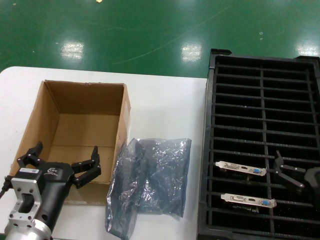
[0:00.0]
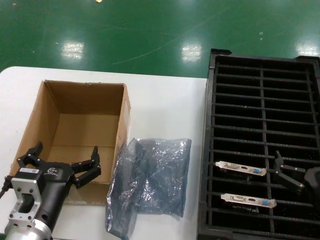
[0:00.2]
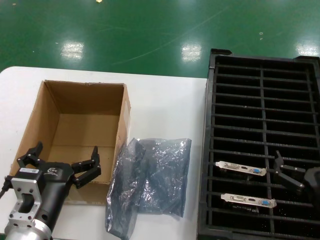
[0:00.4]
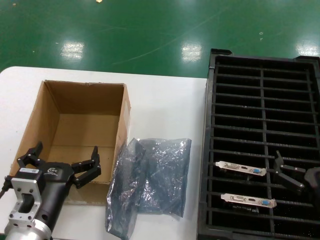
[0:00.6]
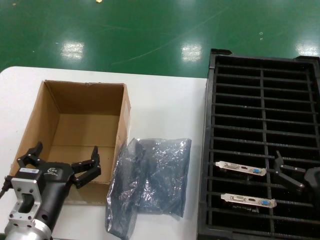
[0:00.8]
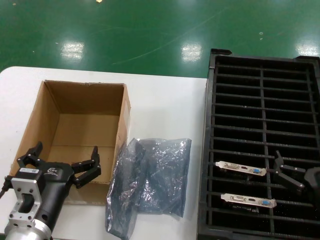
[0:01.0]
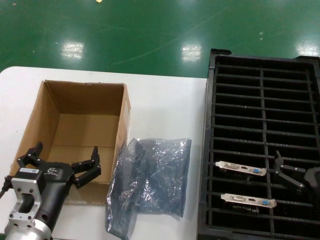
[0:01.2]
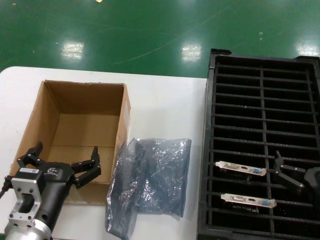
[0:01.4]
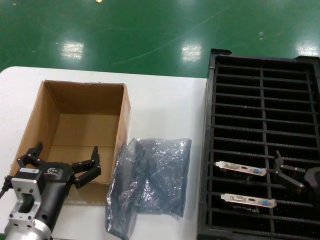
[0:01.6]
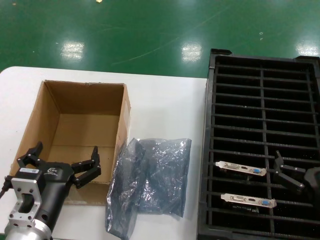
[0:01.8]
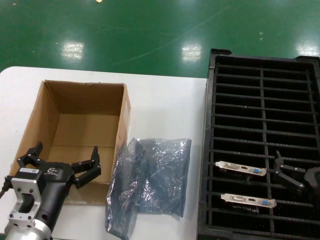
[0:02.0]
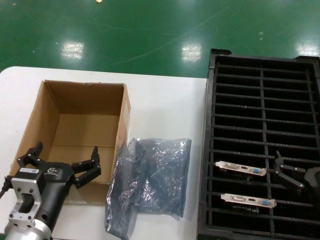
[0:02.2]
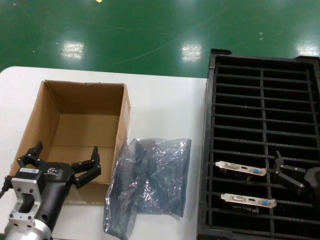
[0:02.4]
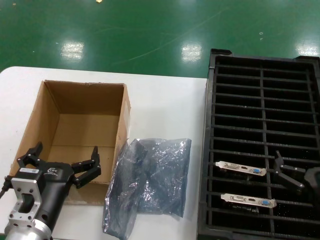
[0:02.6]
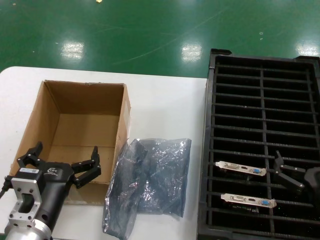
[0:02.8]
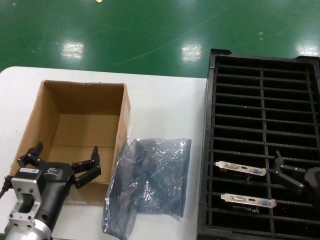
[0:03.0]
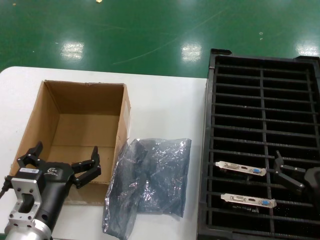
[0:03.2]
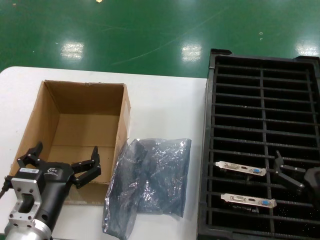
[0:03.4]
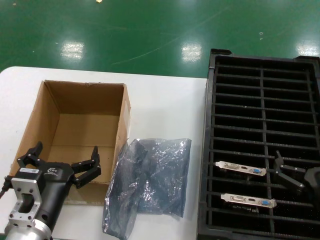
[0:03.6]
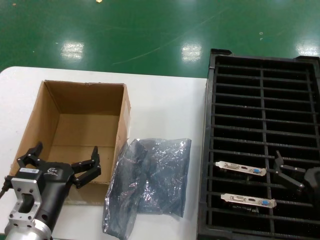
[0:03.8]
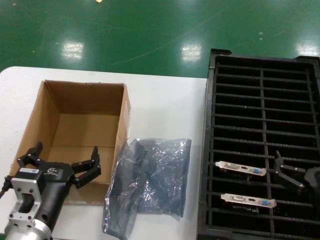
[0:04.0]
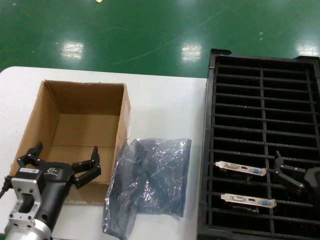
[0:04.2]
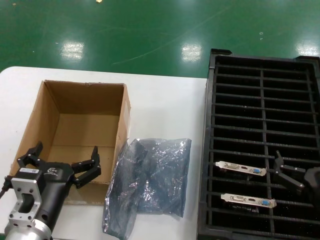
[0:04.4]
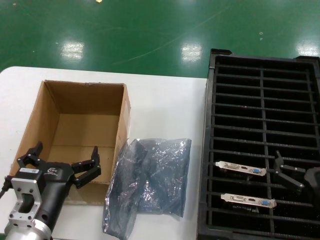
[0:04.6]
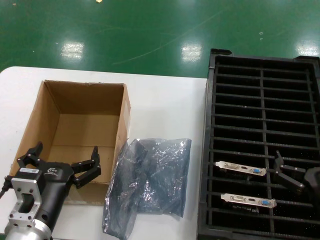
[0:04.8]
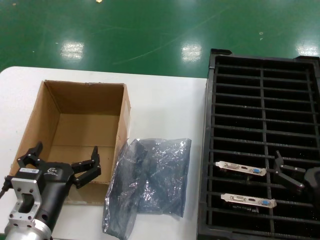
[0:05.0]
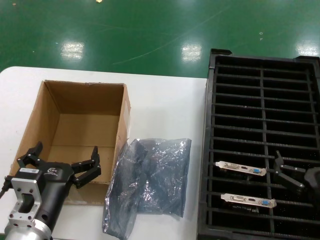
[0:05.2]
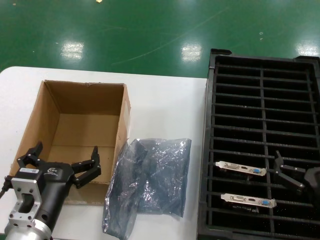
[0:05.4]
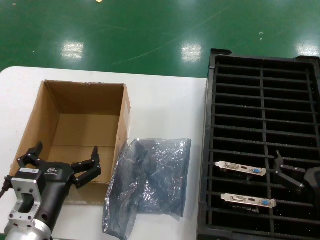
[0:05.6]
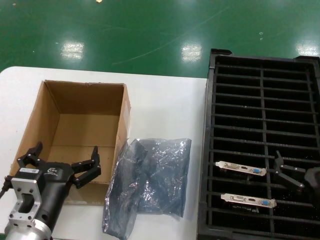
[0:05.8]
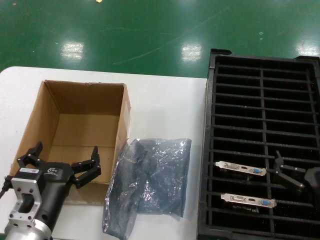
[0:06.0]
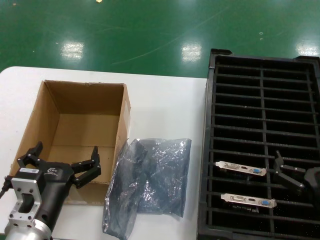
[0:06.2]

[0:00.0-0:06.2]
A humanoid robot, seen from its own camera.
Task of the whole recording: take out graphics card from box remove packaging put into black container.
0:00.0 to 0:06.2: The two hands keep their place.

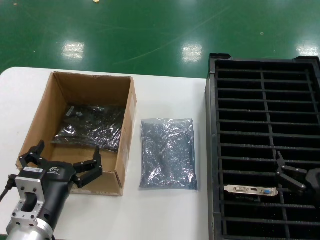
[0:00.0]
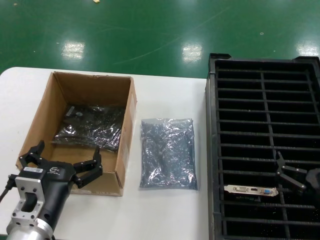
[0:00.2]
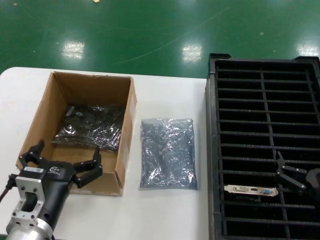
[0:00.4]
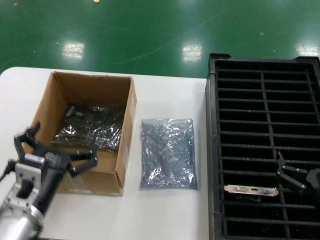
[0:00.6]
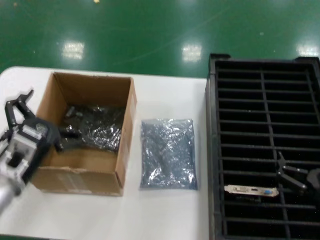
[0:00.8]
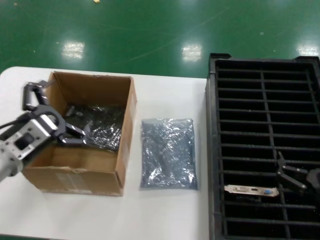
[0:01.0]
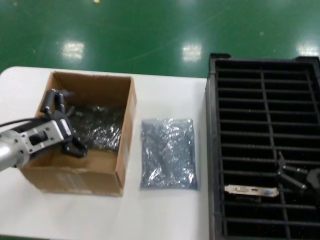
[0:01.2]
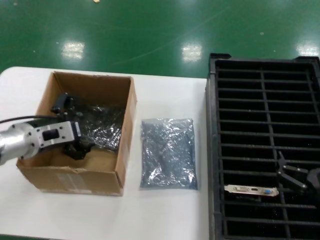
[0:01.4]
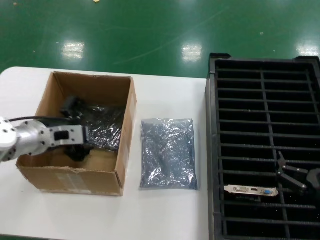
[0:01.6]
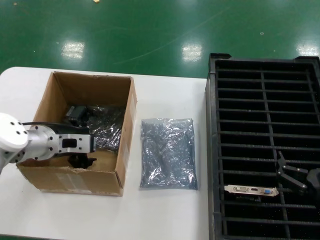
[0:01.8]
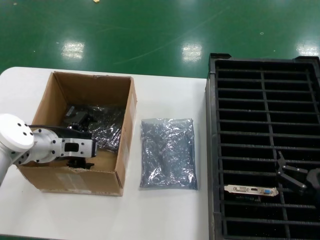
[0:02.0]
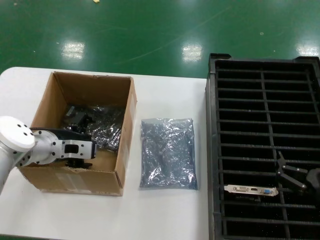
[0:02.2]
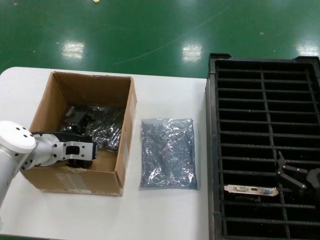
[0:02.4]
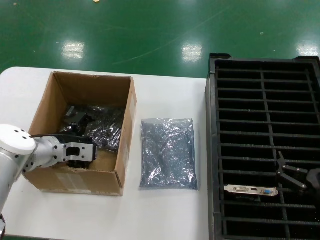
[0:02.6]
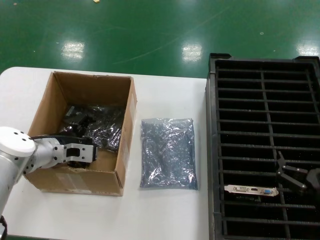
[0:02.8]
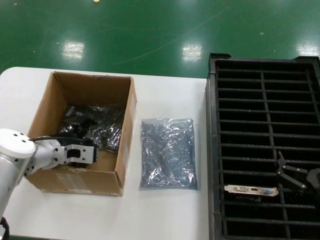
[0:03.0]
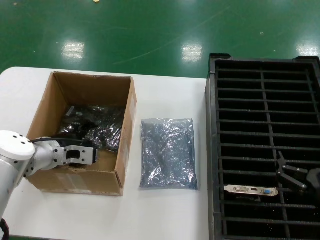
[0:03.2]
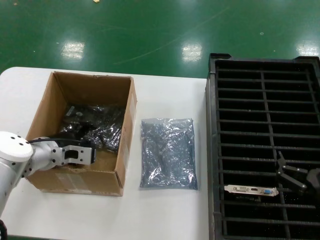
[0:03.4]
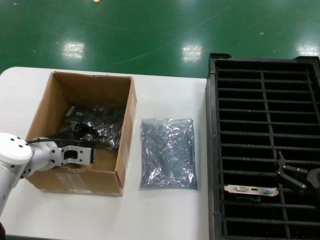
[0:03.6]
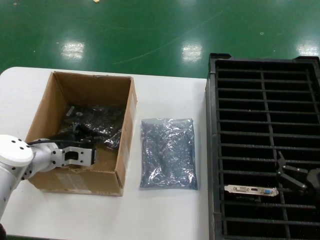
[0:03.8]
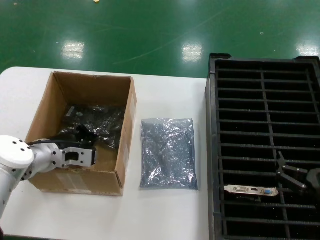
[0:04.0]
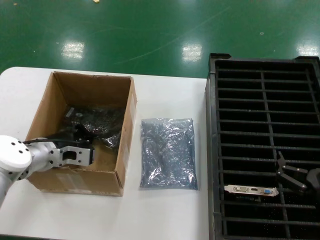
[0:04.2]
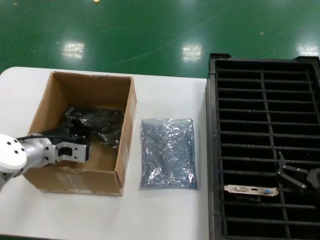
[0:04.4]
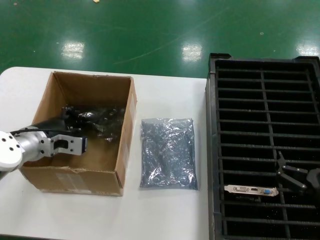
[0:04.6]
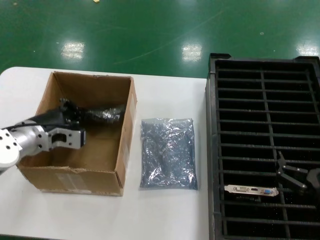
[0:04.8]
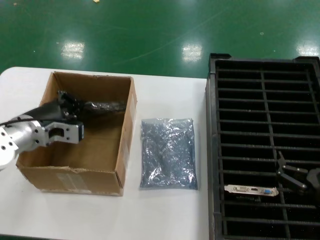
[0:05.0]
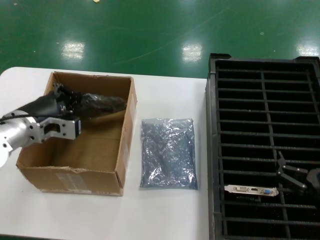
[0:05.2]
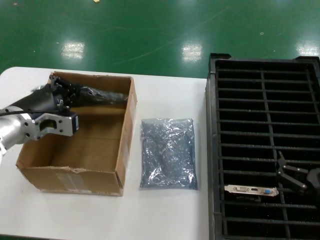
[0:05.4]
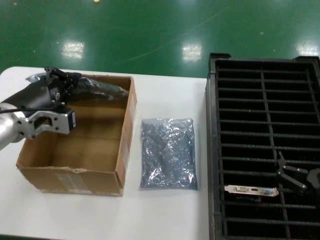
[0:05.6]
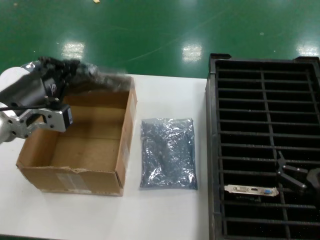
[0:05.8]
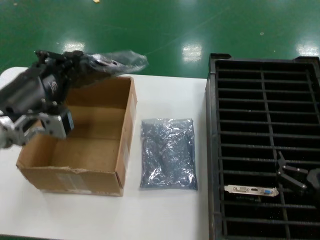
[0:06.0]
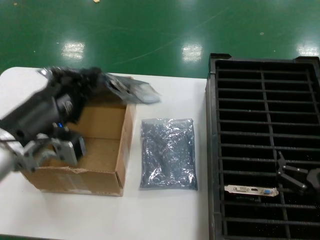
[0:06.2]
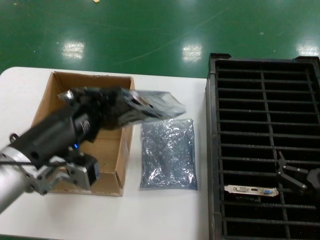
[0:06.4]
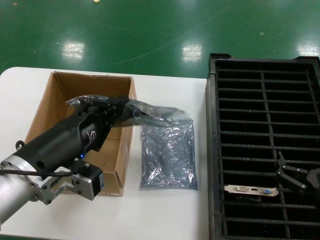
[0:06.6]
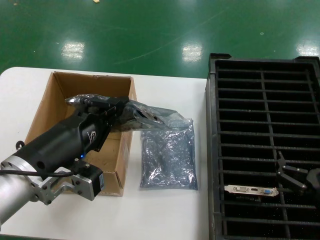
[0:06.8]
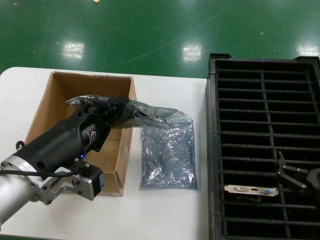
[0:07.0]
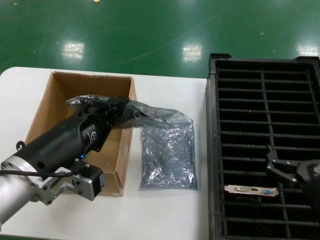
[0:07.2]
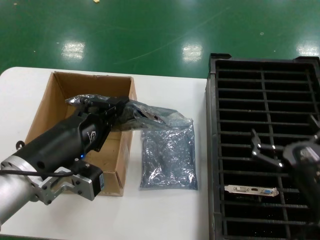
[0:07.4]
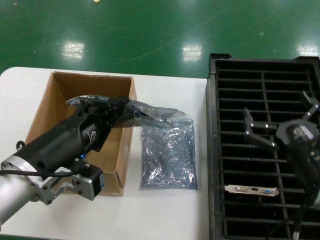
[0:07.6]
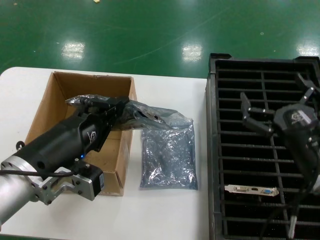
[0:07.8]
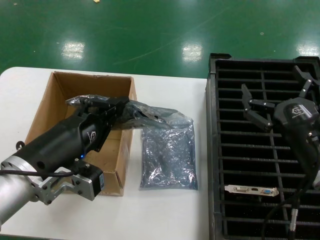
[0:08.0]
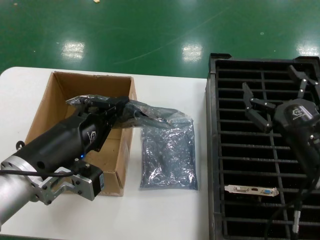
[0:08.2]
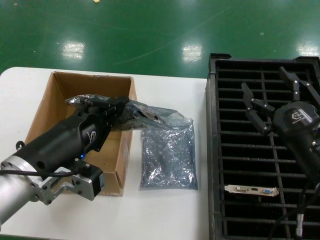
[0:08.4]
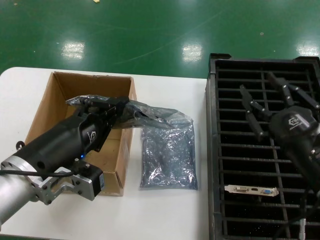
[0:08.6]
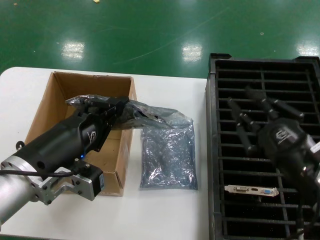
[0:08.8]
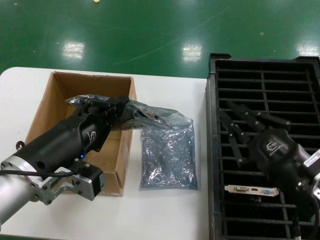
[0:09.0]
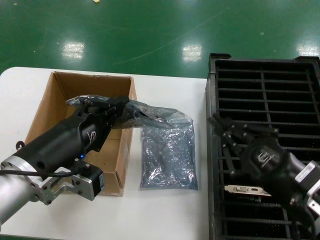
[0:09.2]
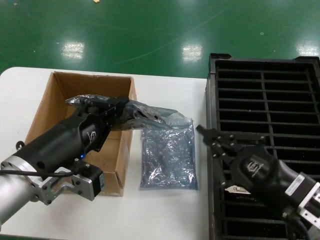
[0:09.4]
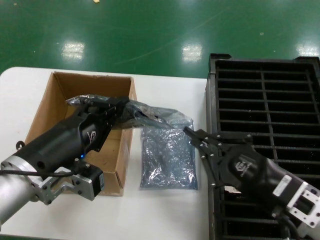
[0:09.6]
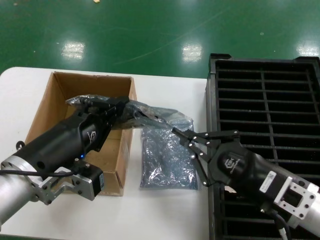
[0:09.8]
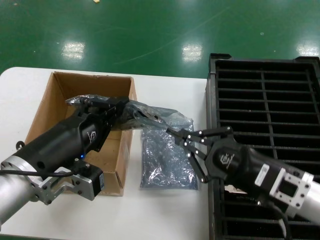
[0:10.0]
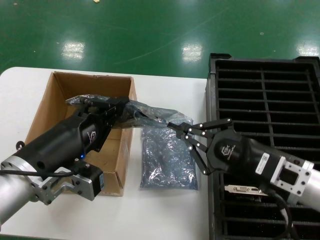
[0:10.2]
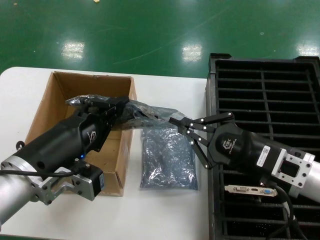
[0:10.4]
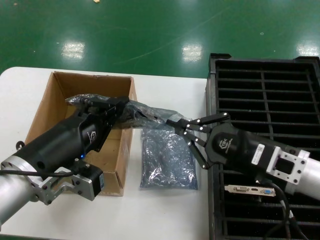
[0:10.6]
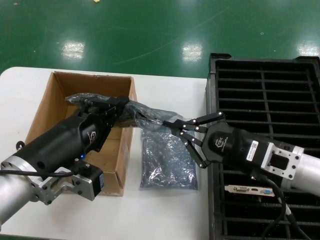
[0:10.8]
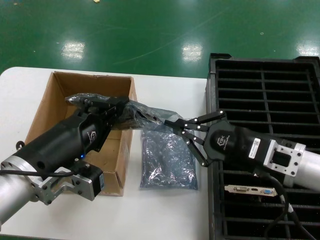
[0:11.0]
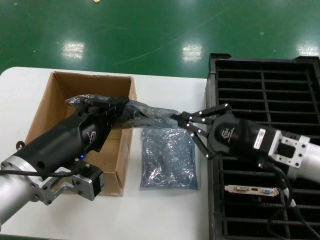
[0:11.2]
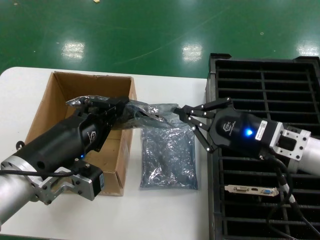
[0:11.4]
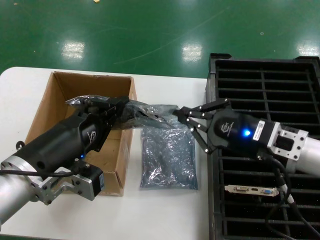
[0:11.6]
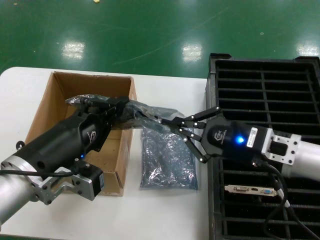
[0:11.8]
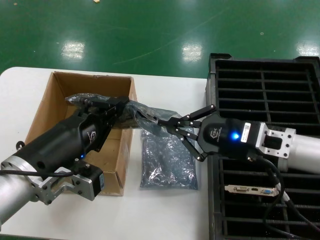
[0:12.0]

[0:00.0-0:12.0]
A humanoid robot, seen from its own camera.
Task of the whole recording: take out graphics card from box remove packaging put into black container.
Step, 0:00.0 to 0:04.0: Grasp the bag.
Step, 0:04.2 to 0:07.0: Lift the bag.
0:00.0 to 0:01.6: The left hand travels forward, upward and to the left by roughly 25 cm.
0:01.6 to 0:03.0: The left hand moves some 5 cm.
0:03.0 to 0:04.4: The hands make only small movements.
0:04.4 to 0:06.0: The left hand is displaced backward and upward by some 20 cm.
0:06.0 to 0:07.6: The right hand shifts by some 5 cm. The left hand is displaced backward by roughly 5 cm.
0:09.0 to 0:10.4: The right hand shifts about 5 cm forward.
0:10.4 to 0:12.0: The right hand moves forward, roughly 5 cm.

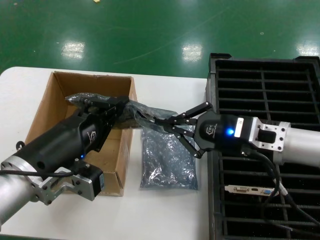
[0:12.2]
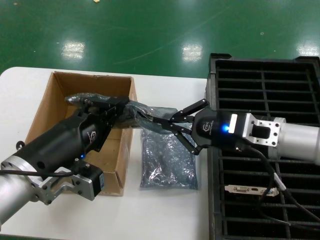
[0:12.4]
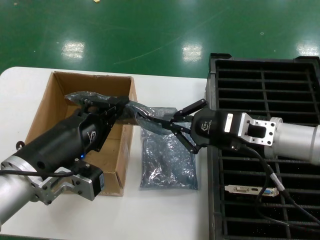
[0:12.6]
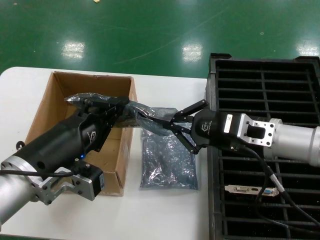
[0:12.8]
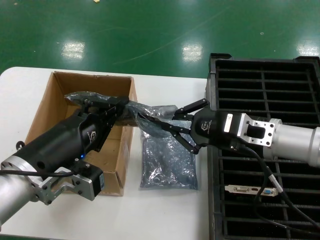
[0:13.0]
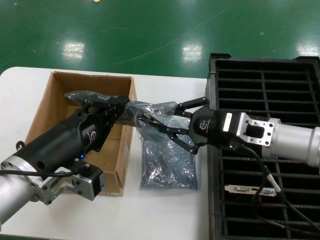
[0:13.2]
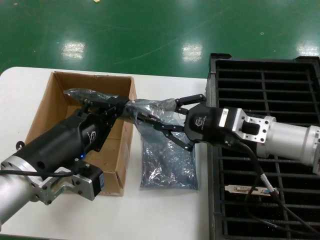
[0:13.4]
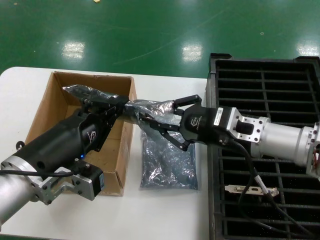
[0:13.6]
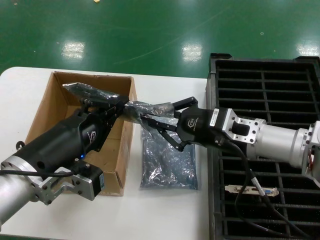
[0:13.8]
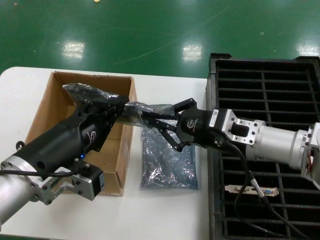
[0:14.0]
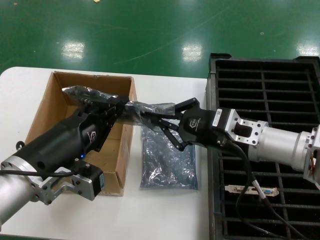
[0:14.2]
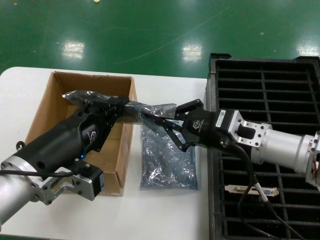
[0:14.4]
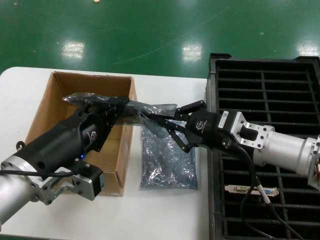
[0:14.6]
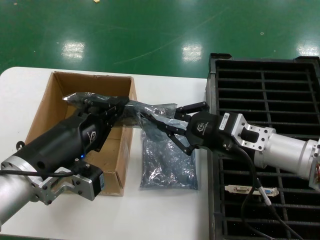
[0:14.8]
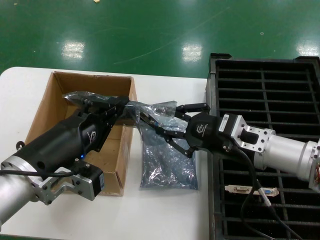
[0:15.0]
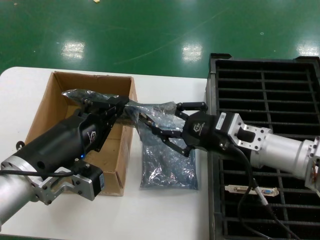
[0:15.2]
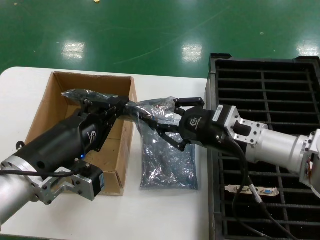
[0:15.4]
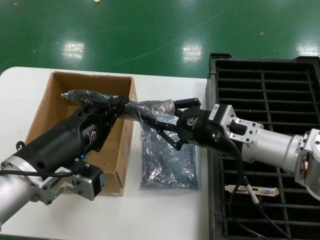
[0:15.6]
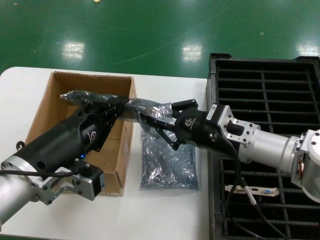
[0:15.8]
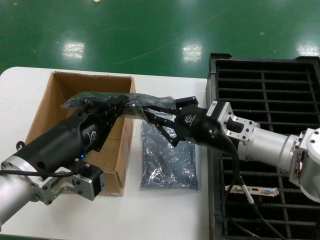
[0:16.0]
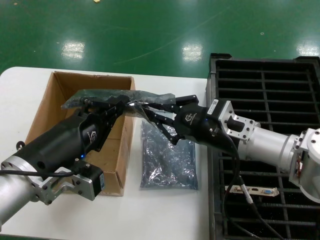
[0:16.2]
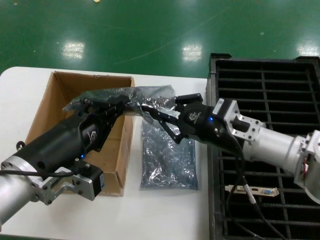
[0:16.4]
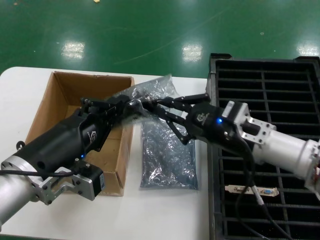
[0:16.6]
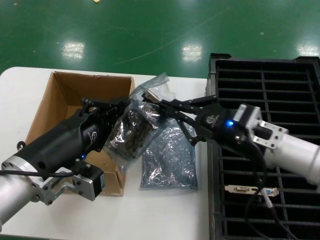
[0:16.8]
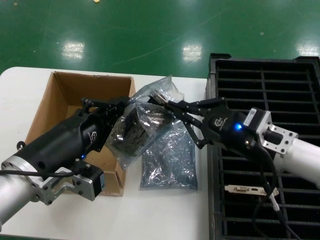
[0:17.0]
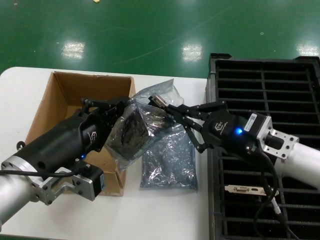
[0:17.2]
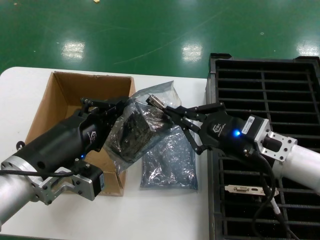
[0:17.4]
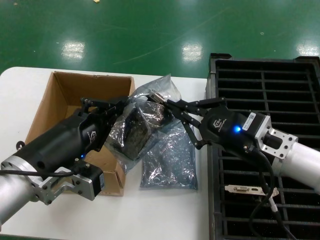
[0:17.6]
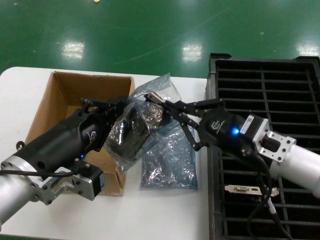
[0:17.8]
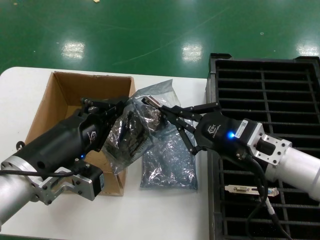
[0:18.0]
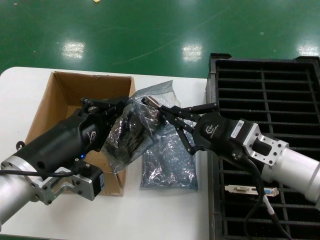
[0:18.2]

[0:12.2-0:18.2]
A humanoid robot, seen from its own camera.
Task of the whole recording: take out graphics card from box remove packaging put into black container.
0:12.2 to 0:15.2: The hands make only small movements.
0:15.2 to 0:18.2: The hands move only a little.
